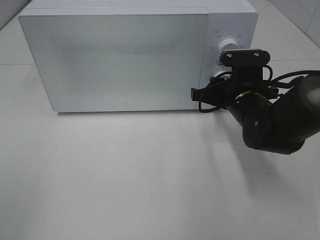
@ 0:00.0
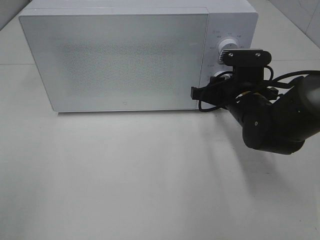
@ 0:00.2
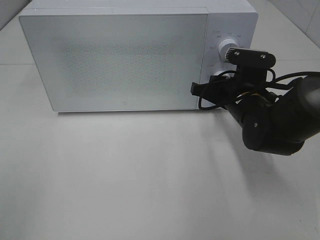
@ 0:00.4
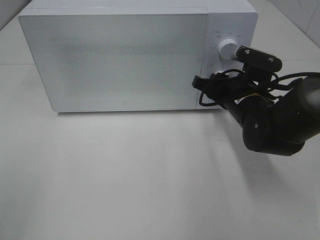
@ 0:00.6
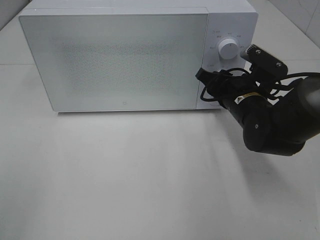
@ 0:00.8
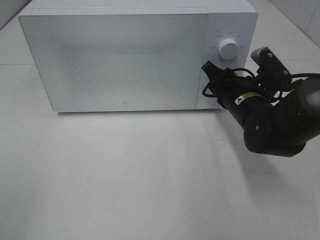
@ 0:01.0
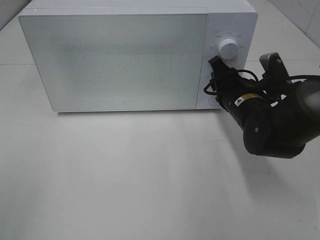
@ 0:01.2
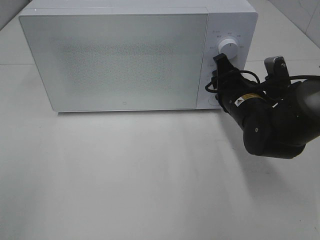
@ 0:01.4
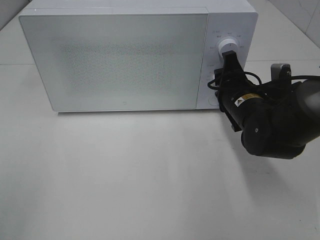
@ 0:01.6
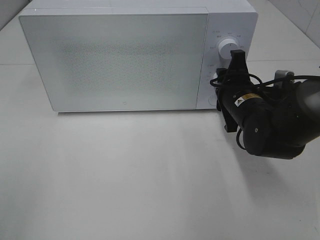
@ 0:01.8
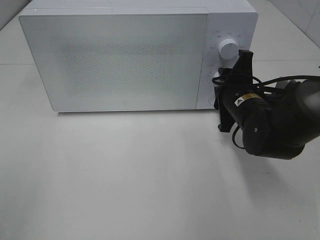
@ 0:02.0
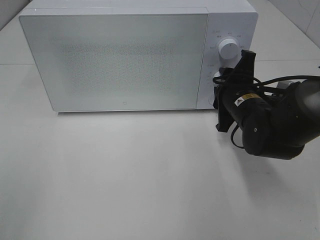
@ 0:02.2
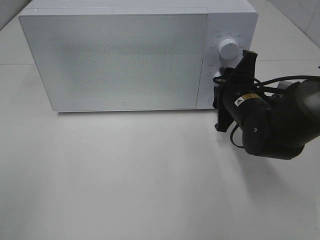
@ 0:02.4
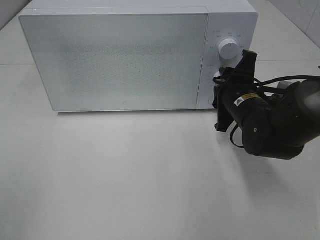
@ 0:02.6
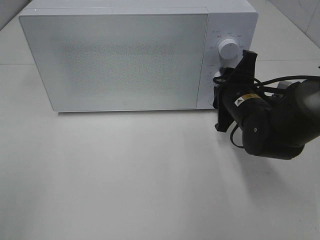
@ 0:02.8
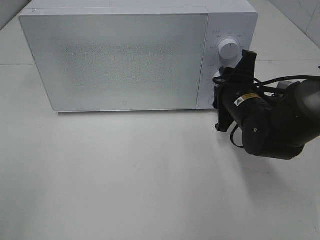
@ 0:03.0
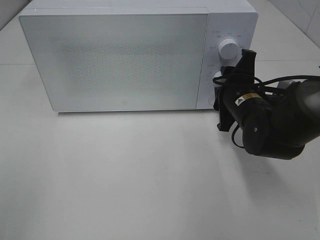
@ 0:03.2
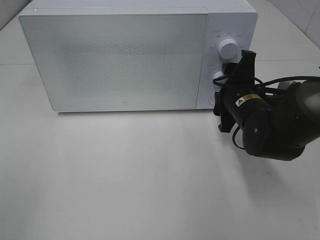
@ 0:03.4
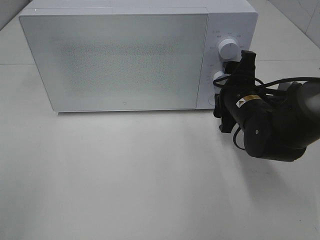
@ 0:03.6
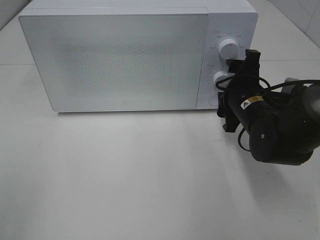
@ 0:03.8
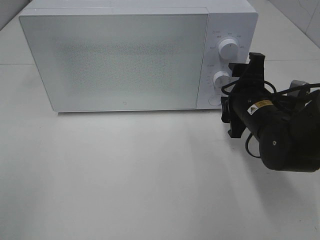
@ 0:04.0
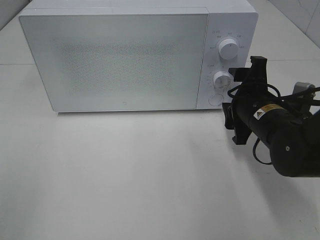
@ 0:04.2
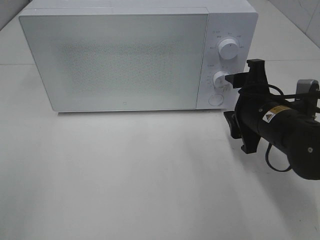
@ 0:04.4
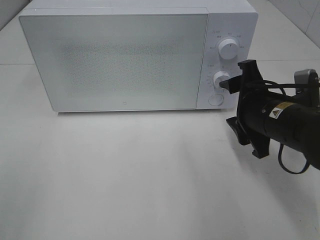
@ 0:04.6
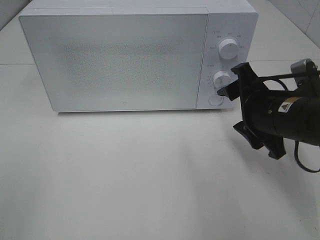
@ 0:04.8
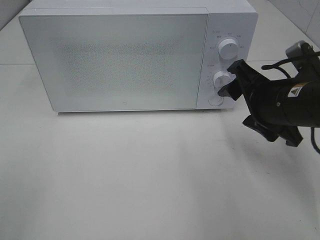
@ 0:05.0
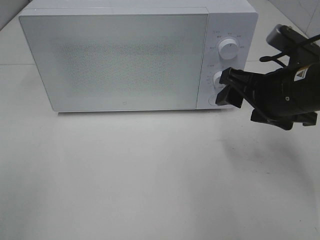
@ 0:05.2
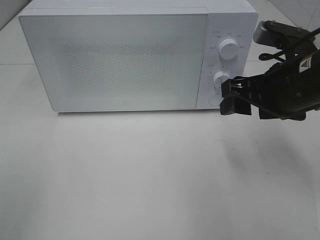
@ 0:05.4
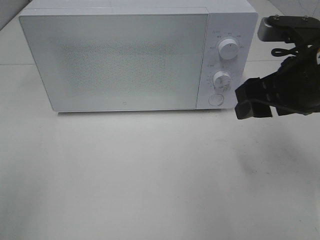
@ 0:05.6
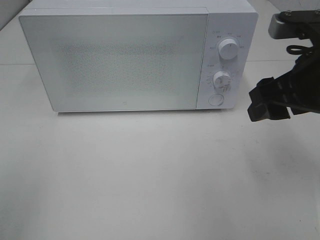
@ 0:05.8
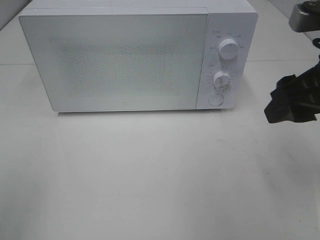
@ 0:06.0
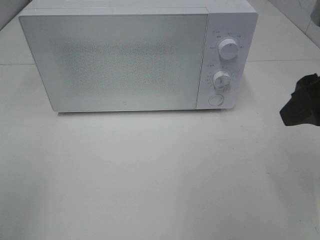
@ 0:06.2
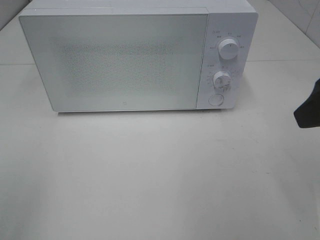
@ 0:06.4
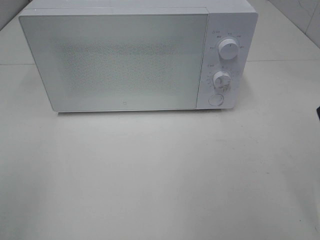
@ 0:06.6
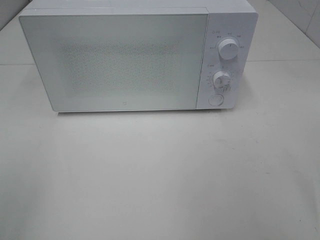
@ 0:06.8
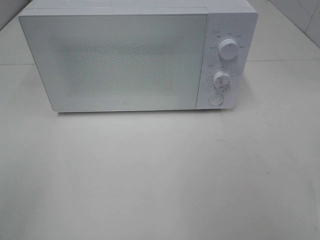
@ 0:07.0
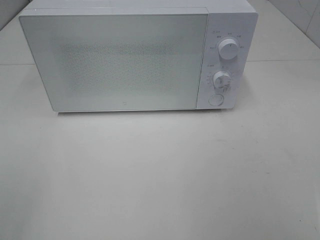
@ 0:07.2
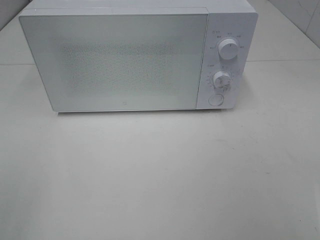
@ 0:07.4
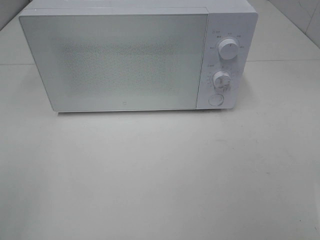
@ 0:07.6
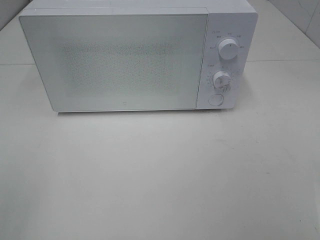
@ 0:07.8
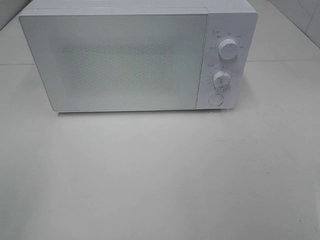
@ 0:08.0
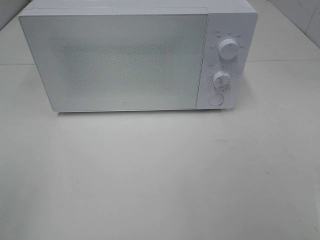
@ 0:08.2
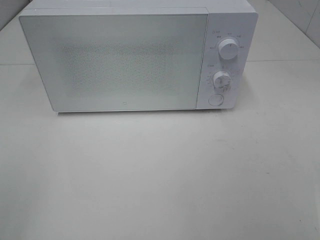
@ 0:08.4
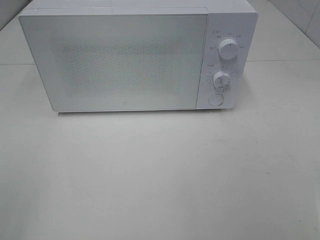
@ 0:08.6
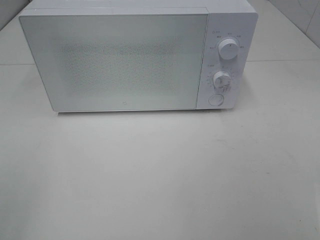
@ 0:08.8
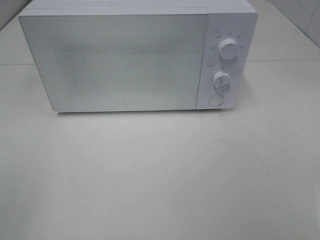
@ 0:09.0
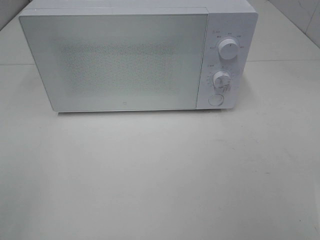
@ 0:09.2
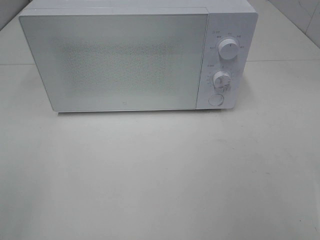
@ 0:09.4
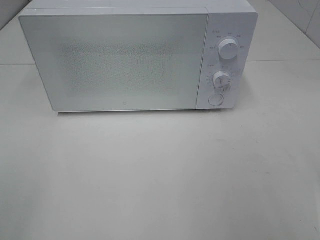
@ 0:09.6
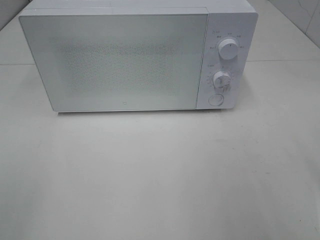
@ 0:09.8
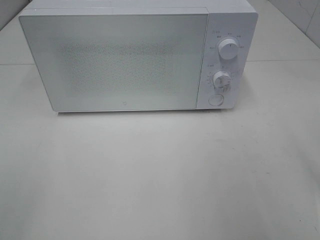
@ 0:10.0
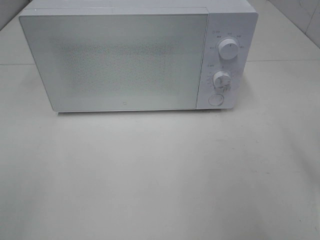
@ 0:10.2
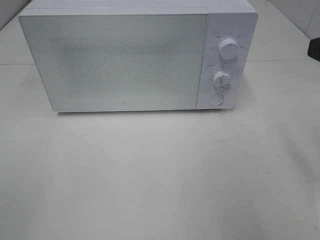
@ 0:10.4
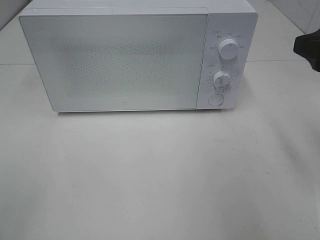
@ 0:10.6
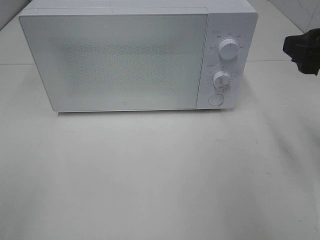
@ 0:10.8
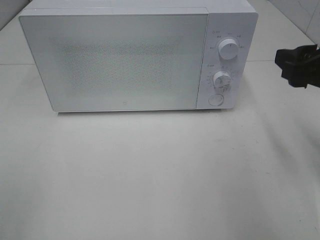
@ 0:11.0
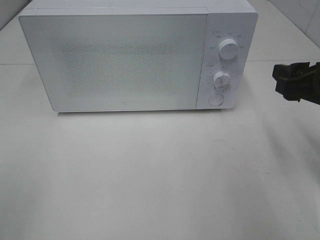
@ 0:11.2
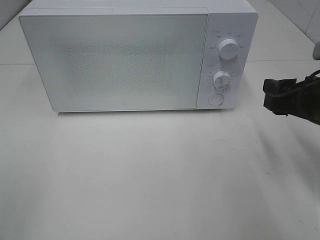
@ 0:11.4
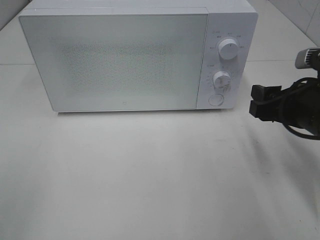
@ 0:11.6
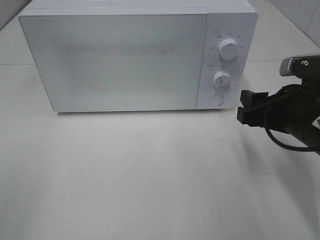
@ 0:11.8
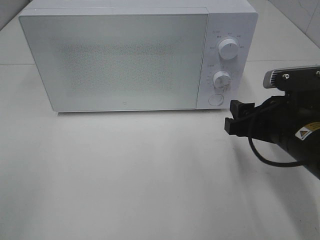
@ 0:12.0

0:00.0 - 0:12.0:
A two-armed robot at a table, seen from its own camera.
Task of the whole recording: Heat Sandwich.
Step, 0:00.0 - 0:03.8: Right hand: twist timer button.
0:03.0 - 0:04.4: The right gripper moves backward, roughly 5 cm.
0:04.4 - 0:06.0: The right gripper heads upward and backward, covering some 15 cm.
0:06.0 - 0:07.6: The right gripper moves backward and to the right, about 20 cm.
0:10.4 - 0:12.0: The right gripper goes approximately 15 cm downward and to the left.

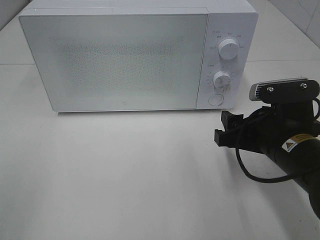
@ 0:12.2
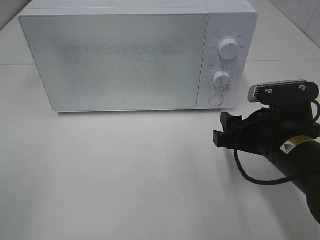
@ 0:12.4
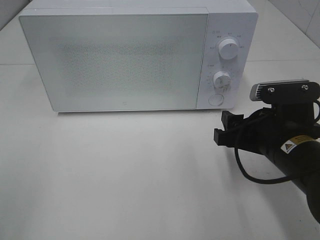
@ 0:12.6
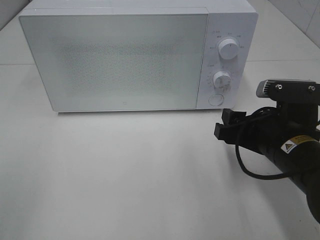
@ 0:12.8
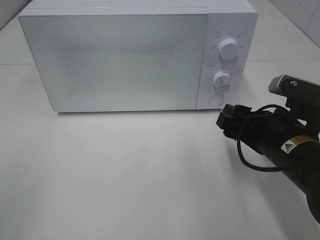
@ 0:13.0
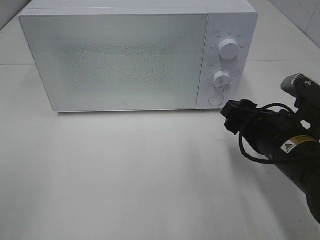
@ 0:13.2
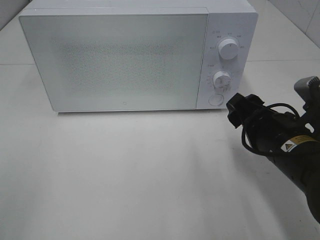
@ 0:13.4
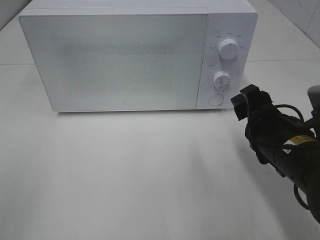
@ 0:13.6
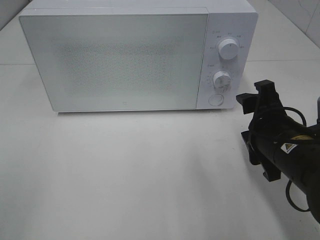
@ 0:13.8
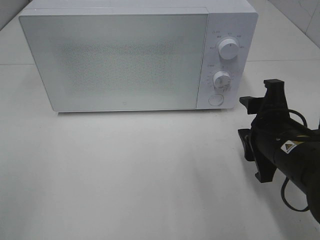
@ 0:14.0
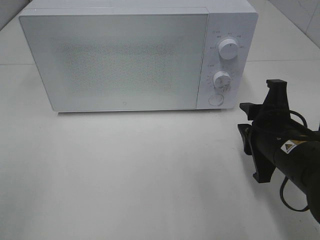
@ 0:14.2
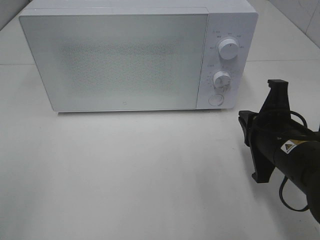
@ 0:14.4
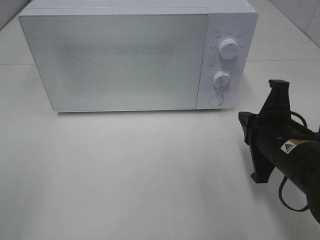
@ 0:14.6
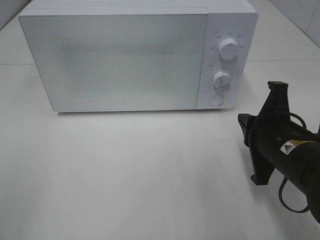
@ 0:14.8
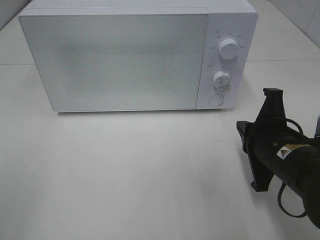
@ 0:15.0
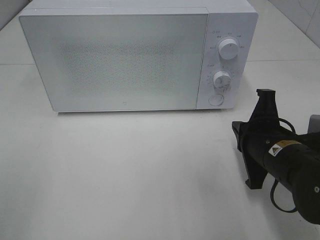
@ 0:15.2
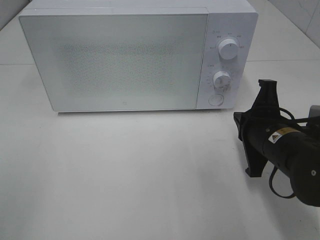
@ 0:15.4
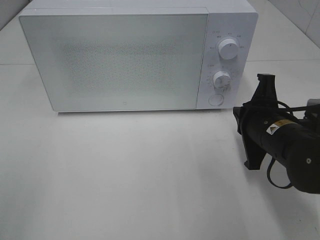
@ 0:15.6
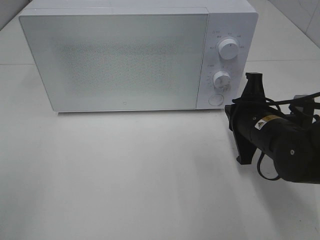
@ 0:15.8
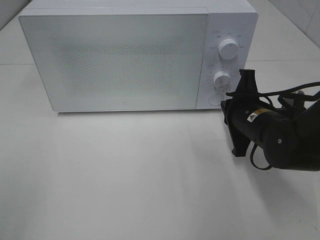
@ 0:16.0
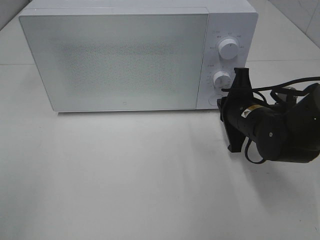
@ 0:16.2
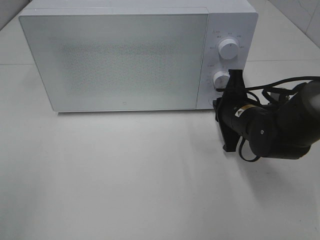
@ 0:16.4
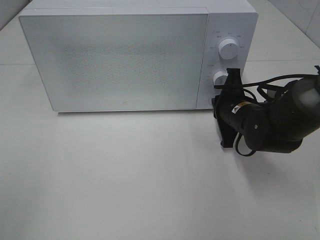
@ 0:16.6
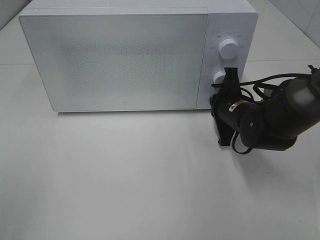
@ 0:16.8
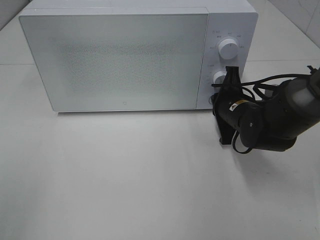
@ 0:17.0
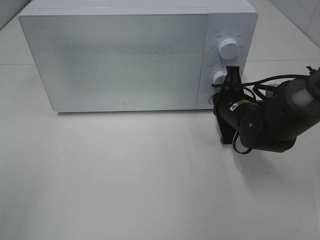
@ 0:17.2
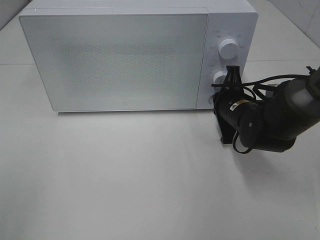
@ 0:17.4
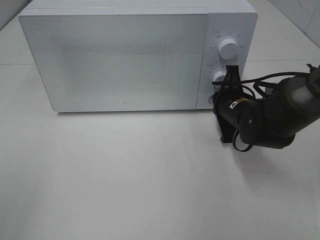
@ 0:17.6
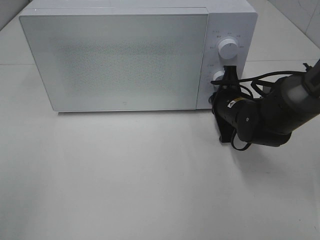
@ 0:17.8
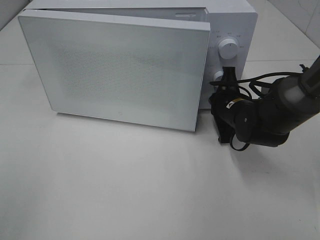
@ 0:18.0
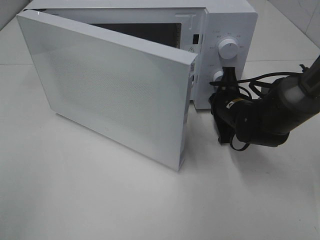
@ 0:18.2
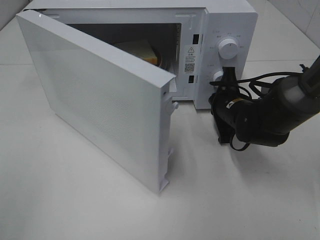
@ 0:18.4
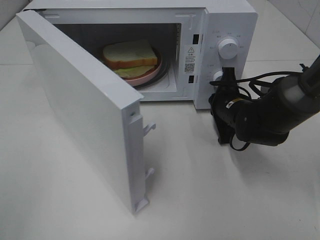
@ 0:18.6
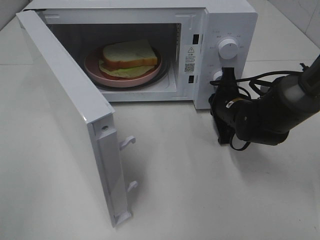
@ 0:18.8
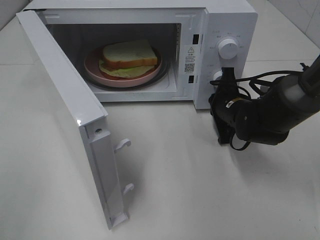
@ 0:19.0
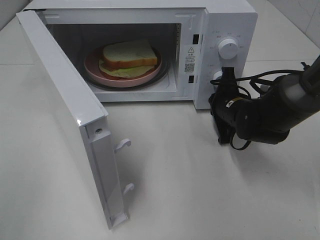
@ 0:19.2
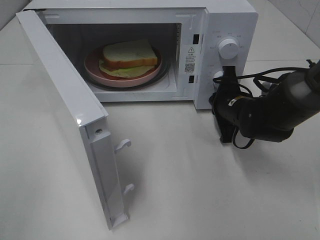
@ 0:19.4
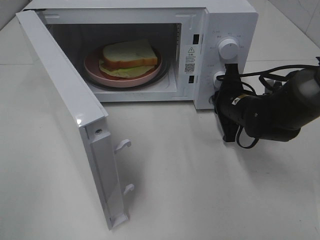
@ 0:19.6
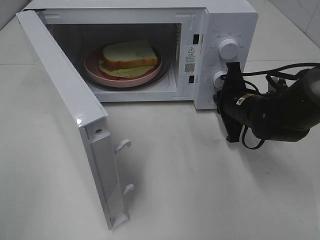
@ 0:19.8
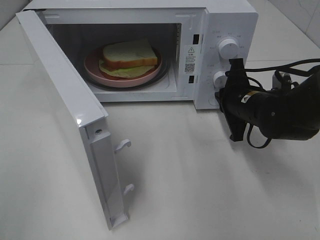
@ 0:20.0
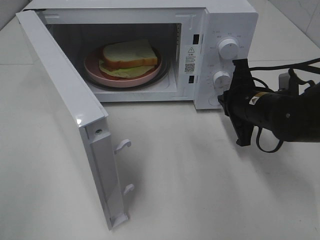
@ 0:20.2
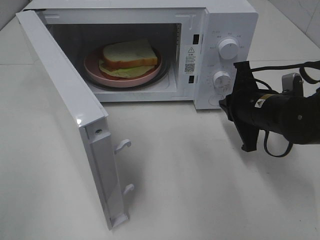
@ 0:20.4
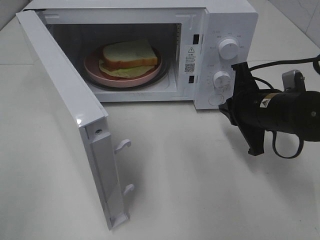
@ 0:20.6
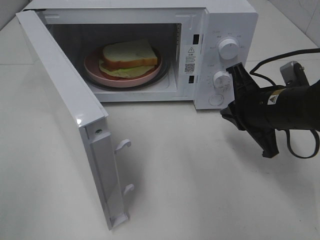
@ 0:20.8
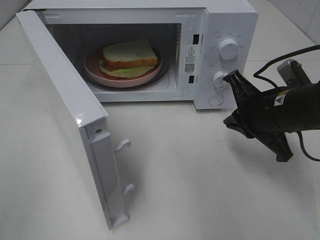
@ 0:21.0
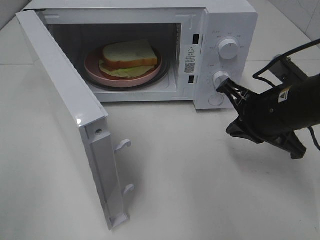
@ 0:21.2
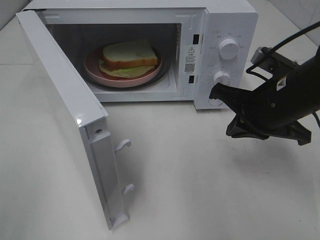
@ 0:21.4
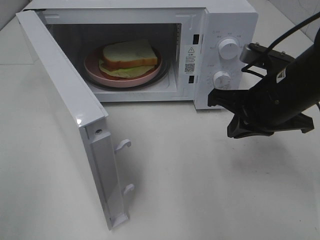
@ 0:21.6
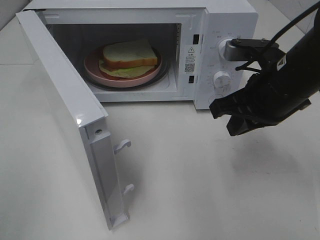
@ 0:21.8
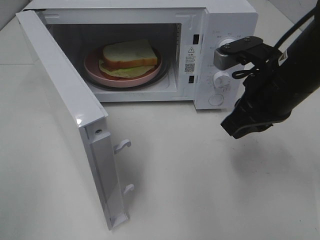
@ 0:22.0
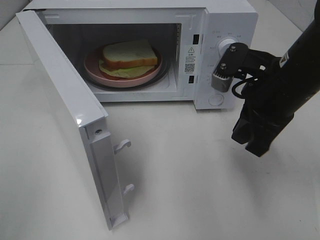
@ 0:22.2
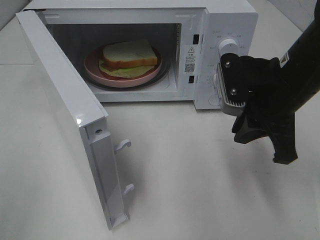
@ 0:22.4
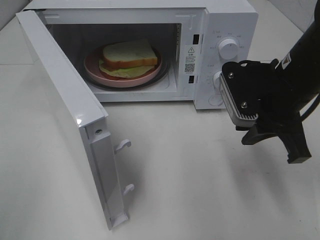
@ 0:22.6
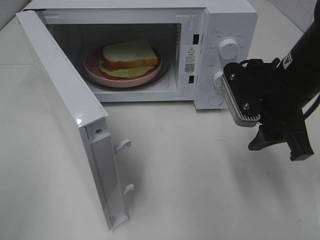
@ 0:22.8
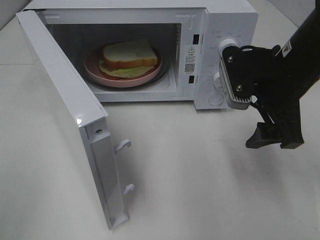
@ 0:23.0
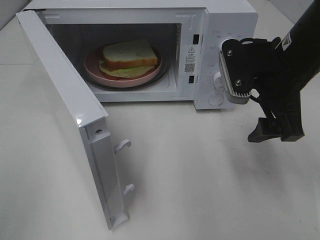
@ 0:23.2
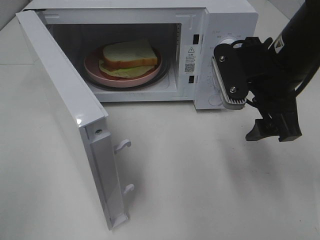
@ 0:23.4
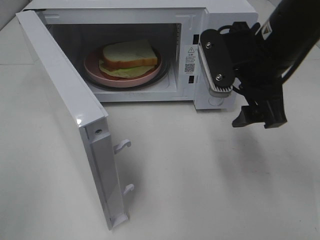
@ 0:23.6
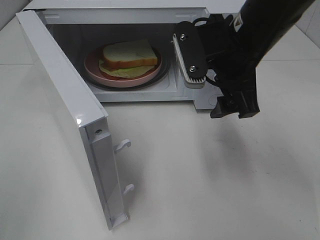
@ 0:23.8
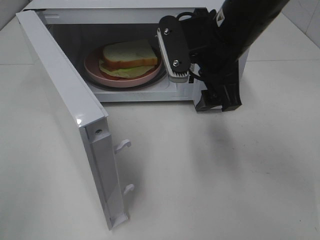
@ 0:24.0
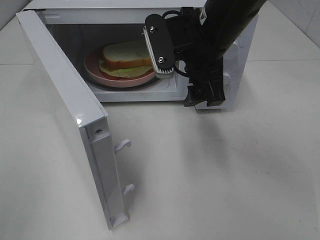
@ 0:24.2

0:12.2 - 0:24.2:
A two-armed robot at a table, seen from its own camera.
Task of the whole recording: Heat Sandwich.
Step, 0:12.2 - 0:20.0: Right hand: press the switch.
0:13.8 - 0:15.2: The right gripper closes.
0:15.2 - 0:16.6: The right gripper heads forward, covering approximately 10 cm.
0:16.6 - 0:18.2: The grippers make only small movements.
0:19.8 - 0:21.2: The right gripper is displaced backward and upward by roughly 10 cm.
0:22.6 - 0:24.2: The right gripper moves to the left and forward, approximately 10 cm, and opens.
